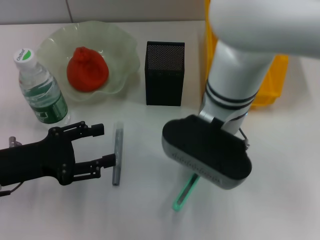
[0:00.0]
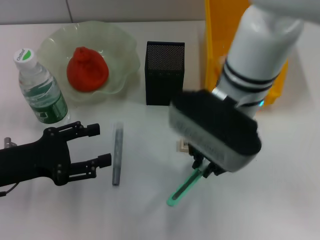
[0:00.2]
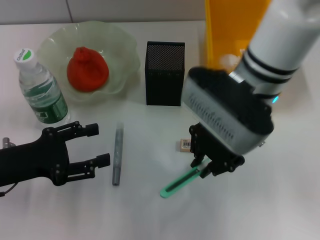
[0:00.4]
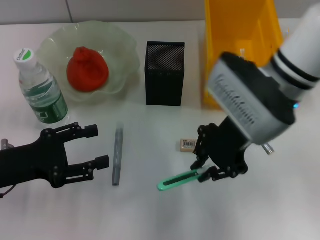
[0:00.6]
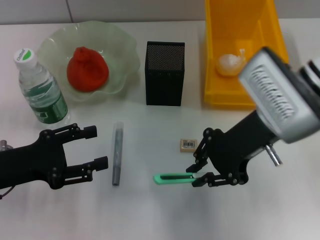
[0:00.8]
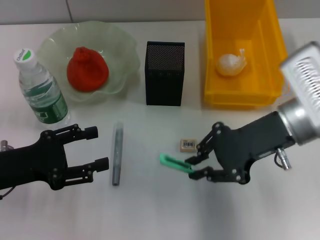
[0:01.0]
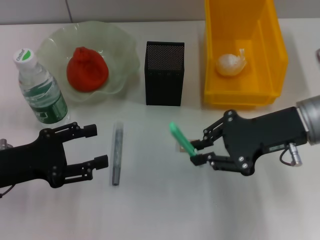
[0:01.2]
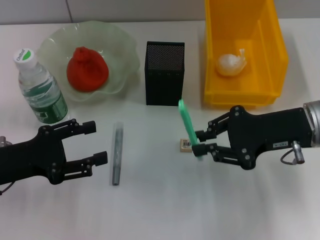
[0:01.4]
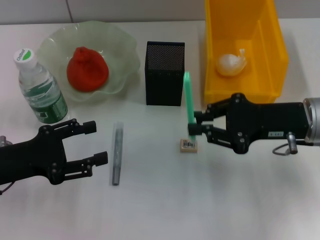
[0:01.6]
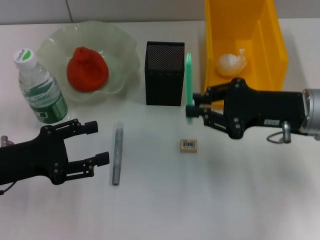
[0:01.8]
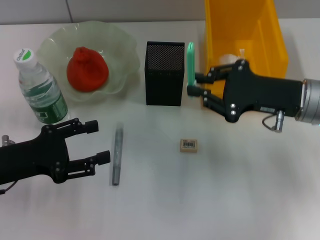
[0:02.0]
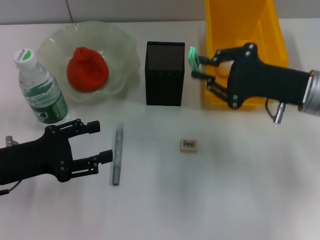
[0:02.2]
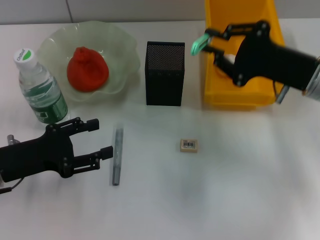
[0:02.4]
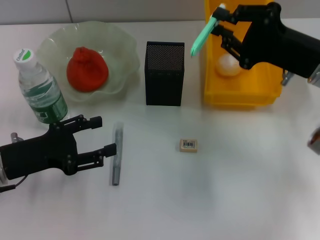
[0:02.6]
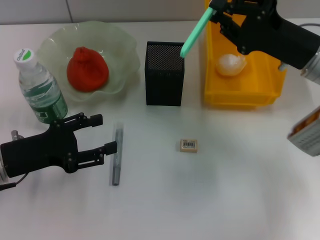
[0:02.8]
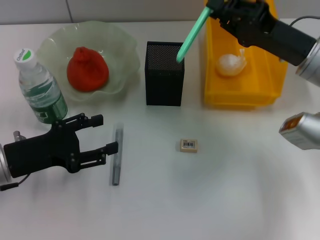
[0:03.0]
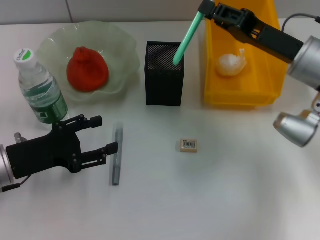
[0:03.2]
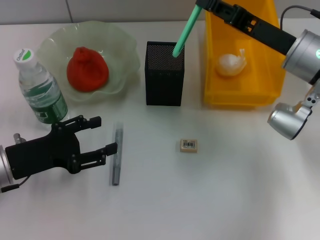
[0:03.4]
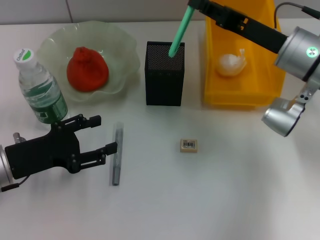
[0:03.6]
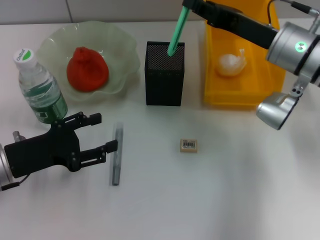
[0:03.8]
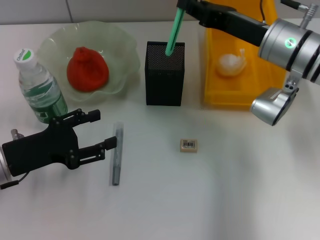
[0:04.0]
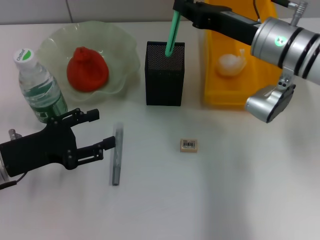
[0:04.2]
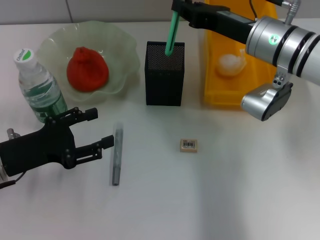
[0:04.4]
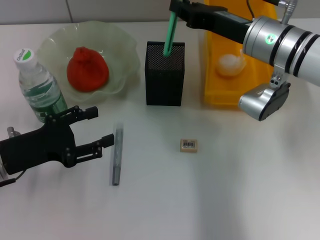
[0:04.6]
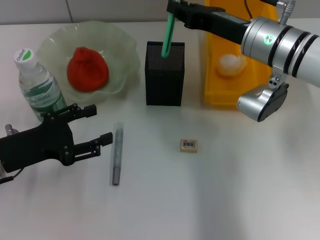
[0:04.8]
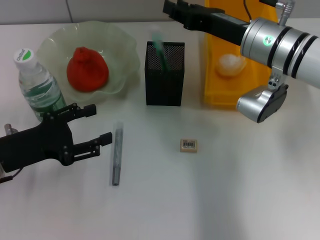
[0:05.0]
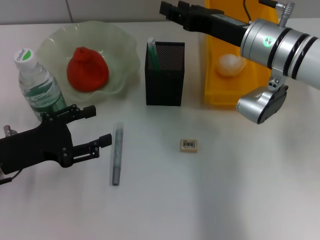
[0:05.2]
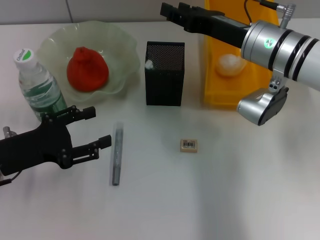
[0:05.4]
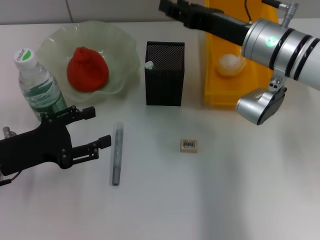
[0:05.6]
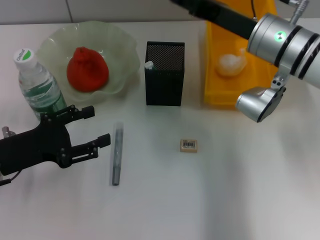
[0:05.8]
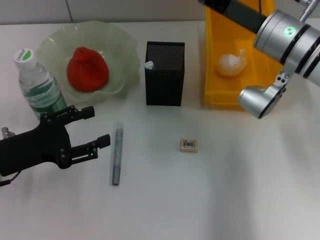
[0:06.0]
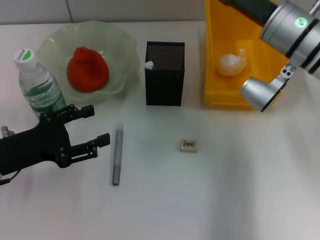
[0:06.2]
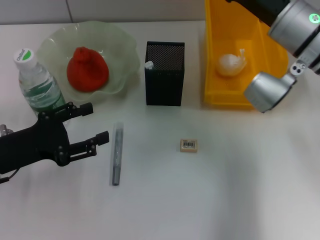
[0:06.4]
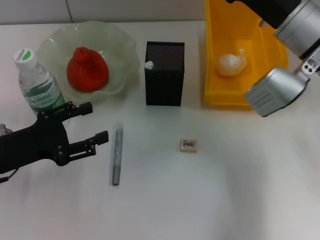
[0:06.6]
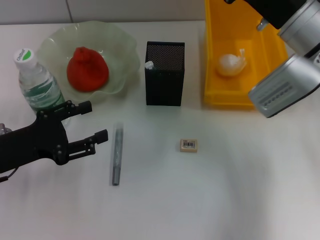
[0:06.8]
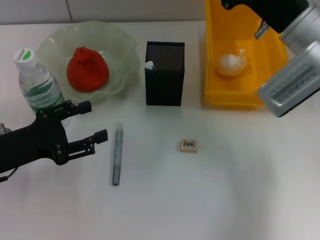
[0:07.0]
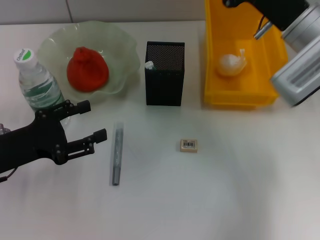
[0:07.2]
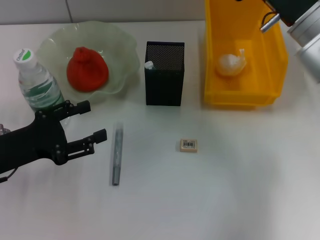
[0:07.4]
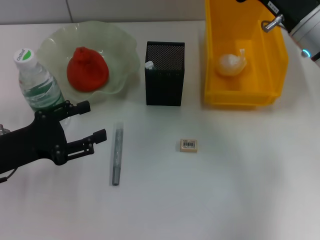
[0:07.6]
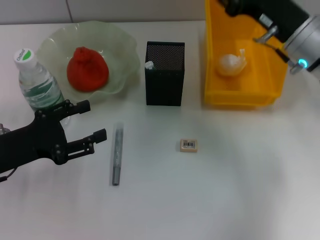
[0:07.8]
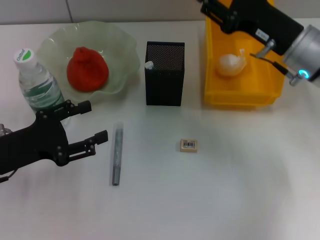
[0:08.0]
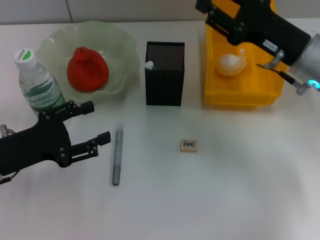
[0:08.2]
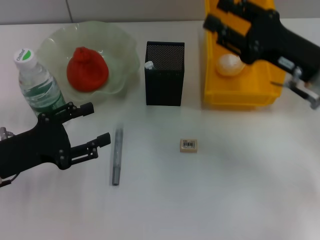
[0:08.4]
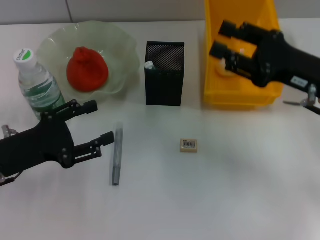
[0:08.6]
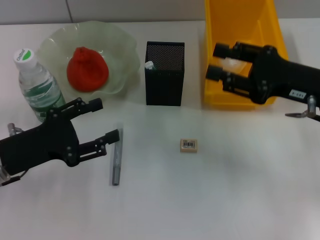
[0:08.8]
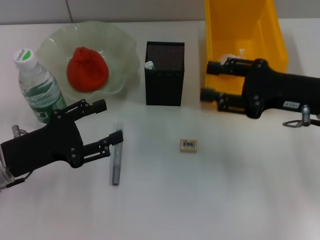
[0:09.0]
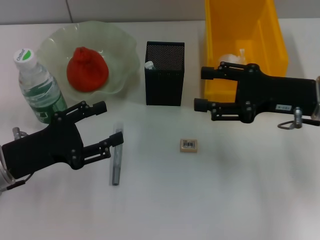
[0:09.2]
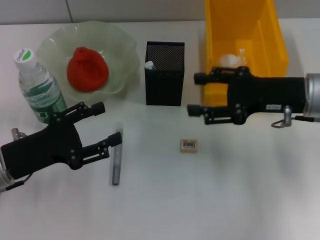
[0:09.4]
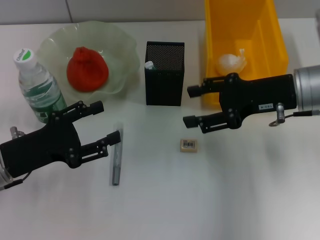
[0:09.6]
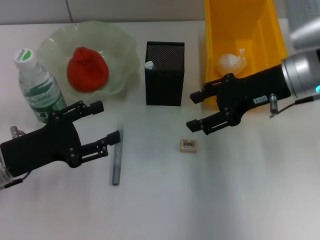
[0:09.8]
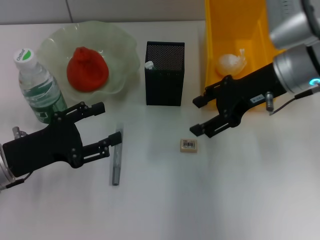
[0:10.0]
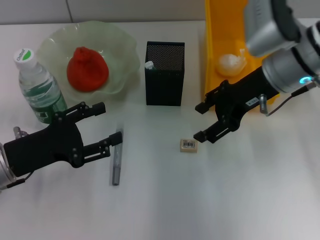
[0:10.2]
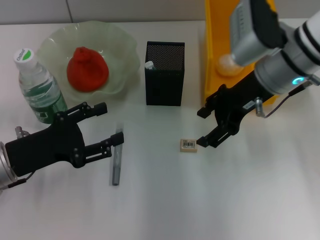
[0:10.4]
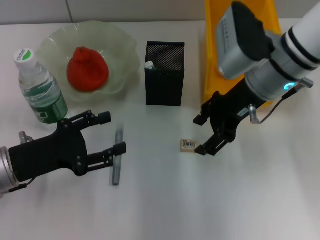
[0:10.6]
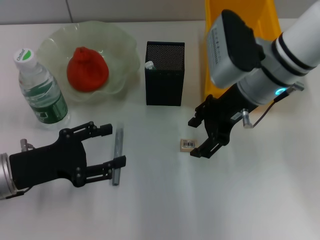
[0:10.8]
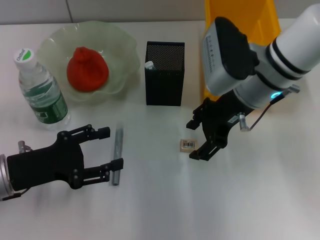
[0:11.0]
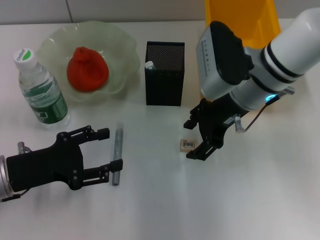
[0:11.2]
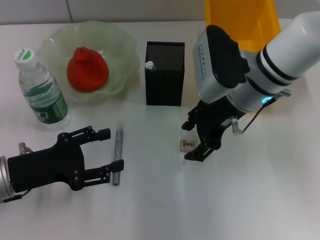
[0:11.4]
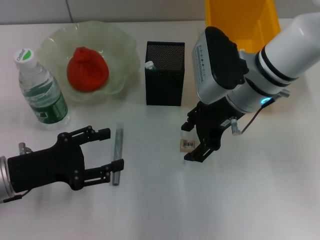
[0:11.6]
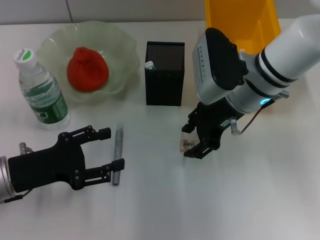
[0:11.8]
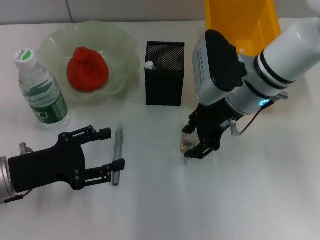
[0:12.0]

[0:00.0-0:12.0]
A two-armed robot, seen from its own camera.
Step, 0:00.0 to 0:05.4: Place the blue utility knife into the pen holder with the right hand.
0:00.0 to 0:01.6: The right gripper travels to the right by roughly 15 cm.
0:03.0 to 0:04.4: The right gripper heads to the left, covering about 5 cm.
0:04.4 to 0:06.0: The right gripper opens.
0:07.6 to 0:09.0: The right gripper travels backward by approximately 5 cm.
0:09.0 to 0:10.4: The right gripper is displaced to the left and forward by some 10 cm.
0:10.4 to 0:12.0: The right gripper shifts by roughly 5 cm.

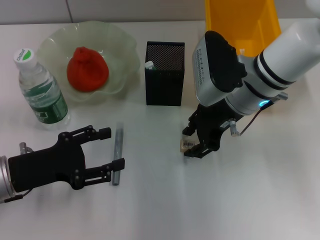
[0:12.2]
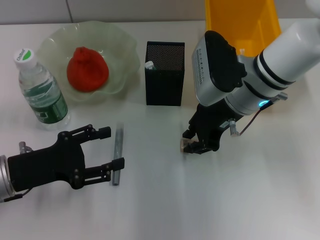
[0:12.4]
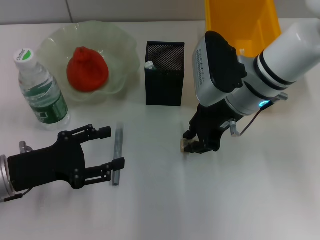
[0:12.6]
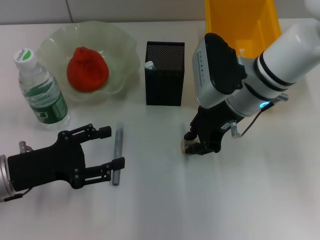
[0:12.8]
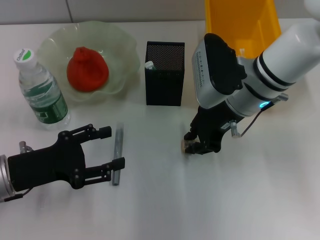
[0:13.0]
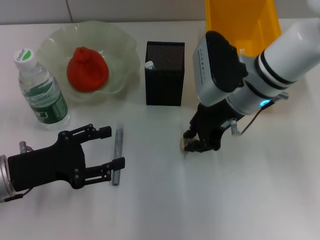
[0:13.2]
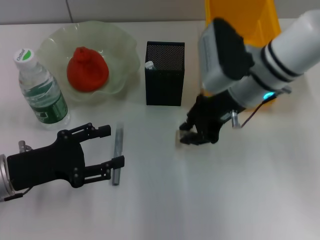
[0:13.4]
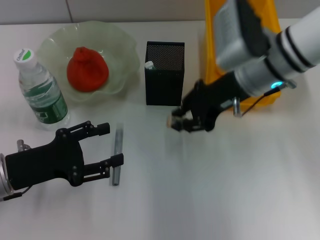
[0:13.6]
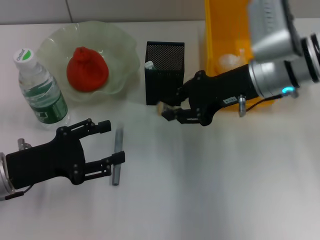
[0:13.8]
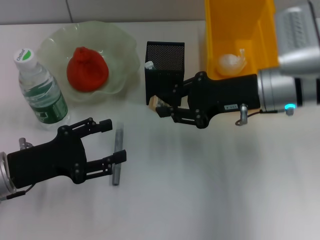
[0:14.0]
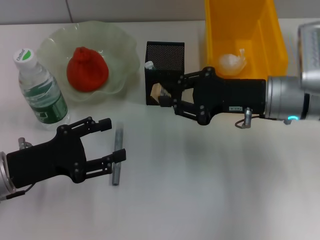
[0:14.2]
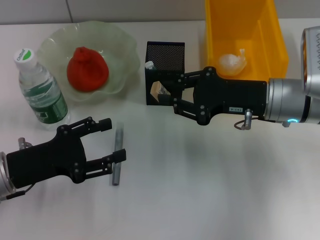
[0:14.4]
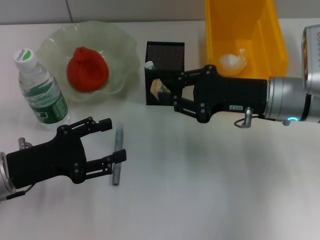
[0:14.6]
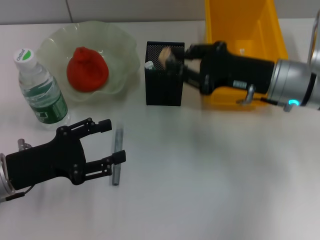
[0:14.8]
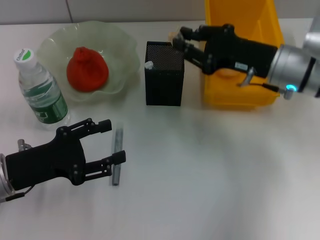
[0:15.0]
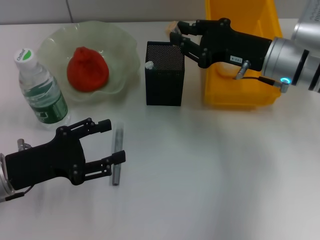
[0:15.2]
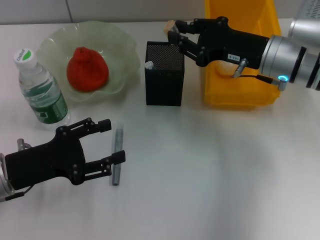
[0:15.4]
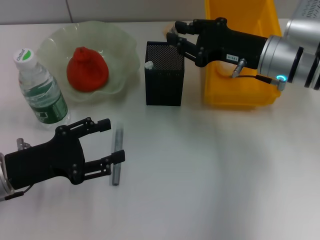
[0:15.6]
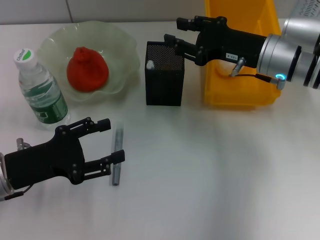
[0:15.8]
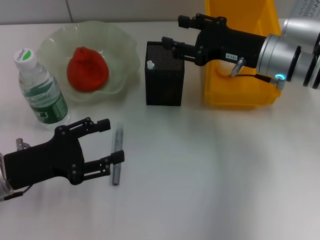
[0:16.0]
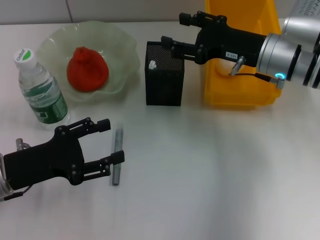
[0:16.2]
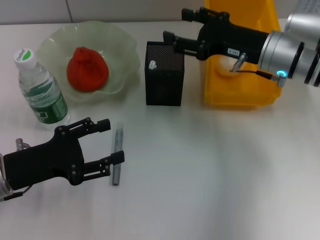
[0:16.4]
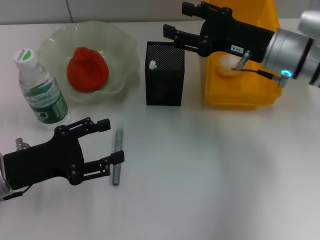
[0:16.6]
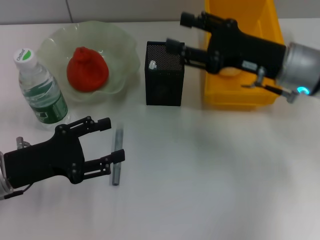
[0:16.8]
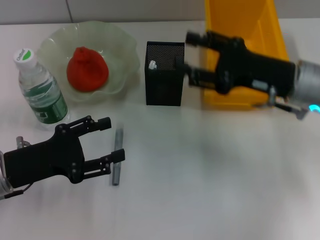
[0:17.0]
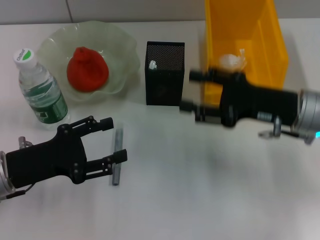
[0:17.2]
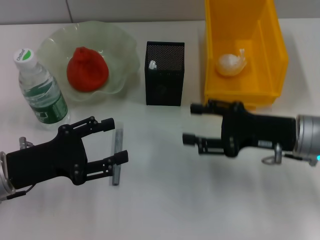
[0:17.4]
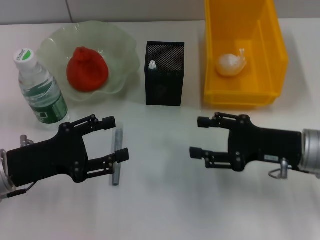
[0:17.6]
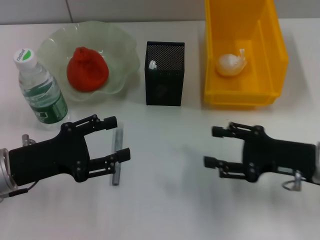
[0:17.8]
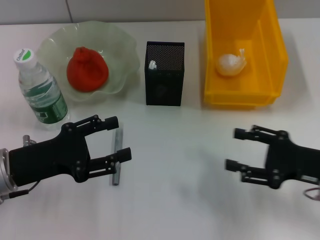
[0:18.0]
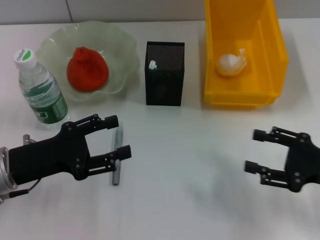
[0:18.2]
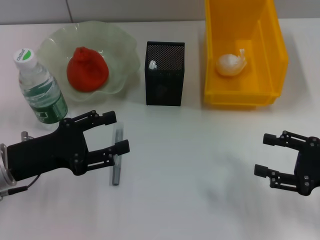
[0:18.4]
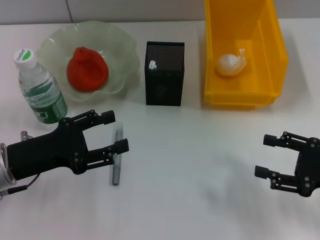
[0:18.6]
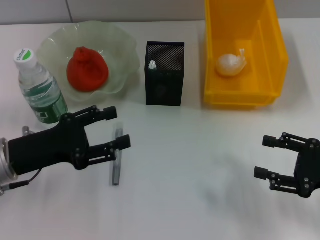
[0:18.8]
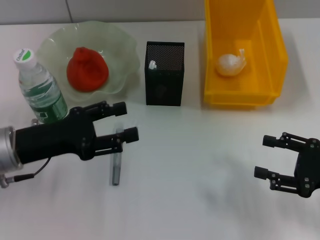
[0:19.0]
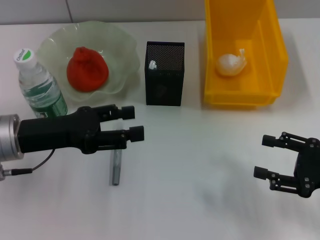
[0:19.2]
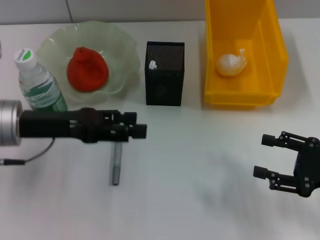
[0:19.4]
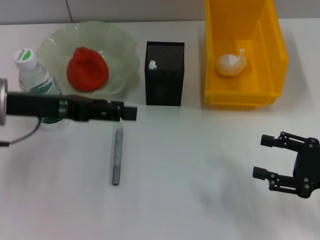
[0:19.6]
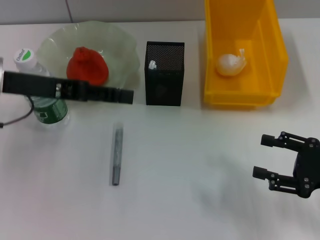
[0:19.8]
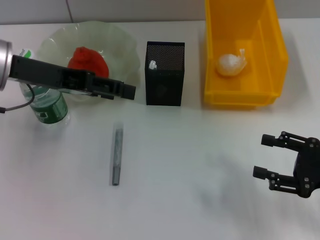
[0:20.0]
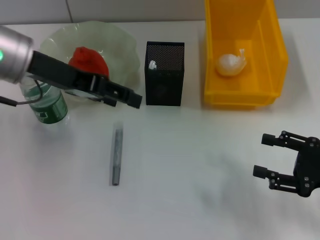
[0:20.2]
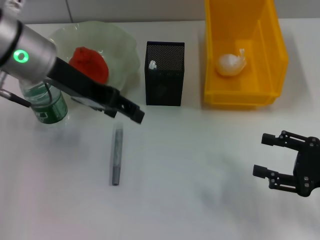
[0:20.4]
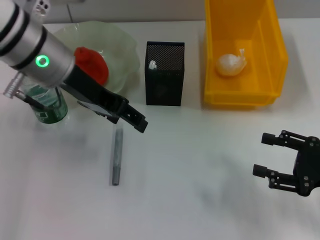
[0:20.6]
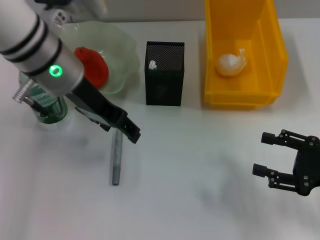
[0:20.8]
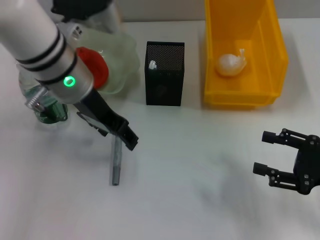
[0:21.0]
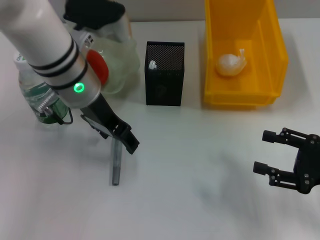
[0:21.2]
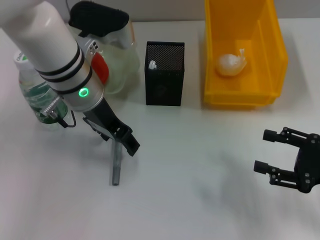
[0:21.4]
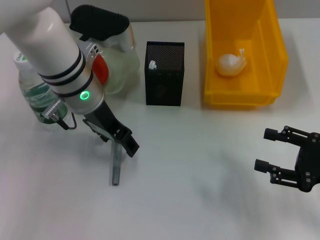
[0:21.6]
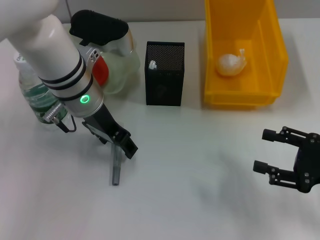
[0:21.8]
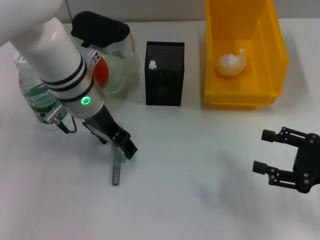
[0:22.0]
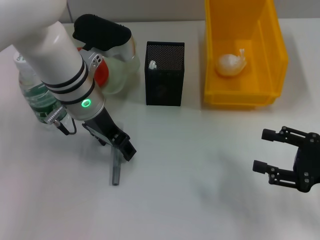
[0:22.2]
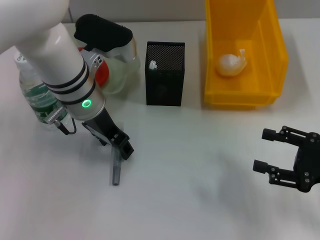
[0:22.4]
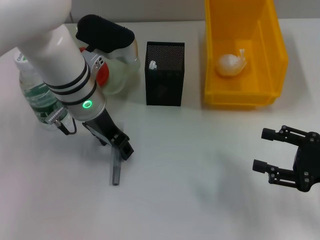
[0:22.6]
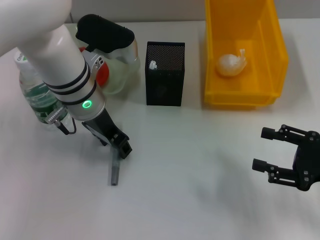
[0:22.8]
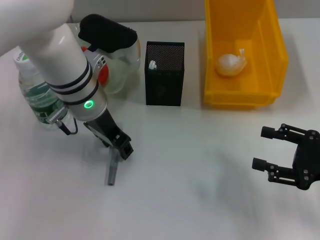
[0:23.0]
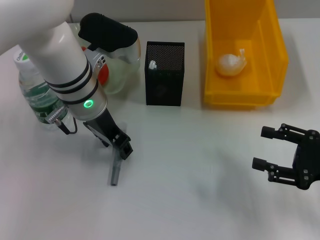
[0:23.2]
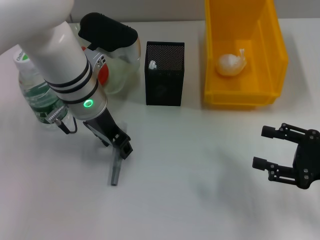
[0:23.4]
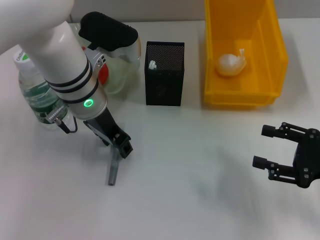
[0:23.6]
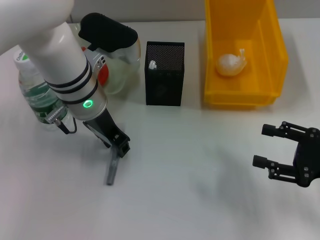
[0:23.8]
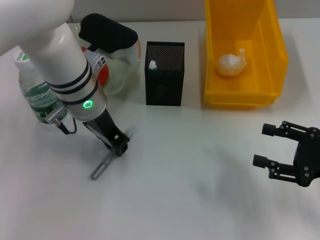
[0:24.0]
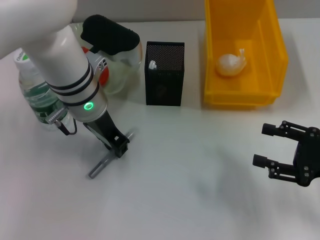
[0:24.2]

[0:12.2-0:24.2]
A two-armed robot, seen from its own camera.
Step, 0:13.0 to 0:16.4: Put the eraser into the pen holder with the right hand.
Step, 0:16.6 to 0:24.2: Grab the gray spring-action pen with the left hand.
0:12.2 to 0:13.8: The right gripper closes its fingers.
0:15.2 to 0:16.6: The right gripper opens up.
0:16.6 to 0:18.2: The right gripper is displaced backward, to the right and downward by about 20 cm.
0:18.2 to 0:19.8: The left gripper shifts about 15 cm upward and forward.
0:19.8 to 0:21.2: The left gripper shifts roughly 10 cm to the right.
0:21.2 to 0:22.6: The grippers make only small movements.
0:22.6 to 0:24.2: The left gripper closes up.
